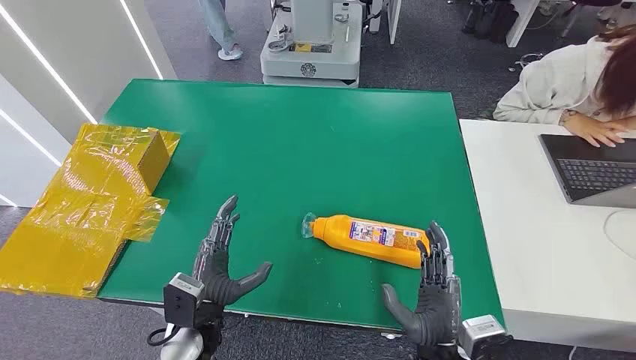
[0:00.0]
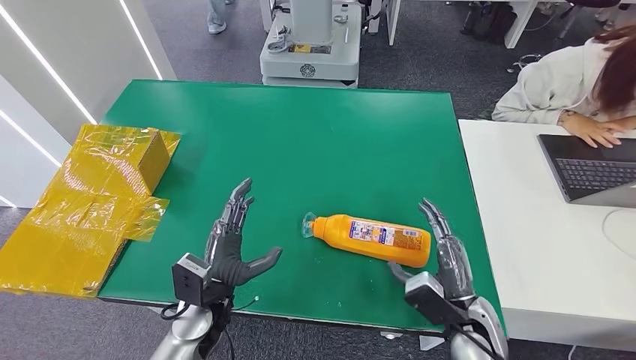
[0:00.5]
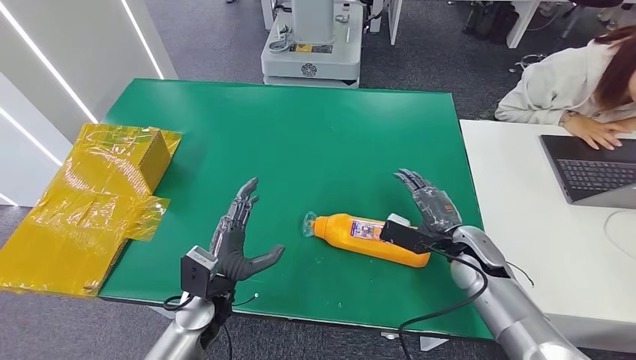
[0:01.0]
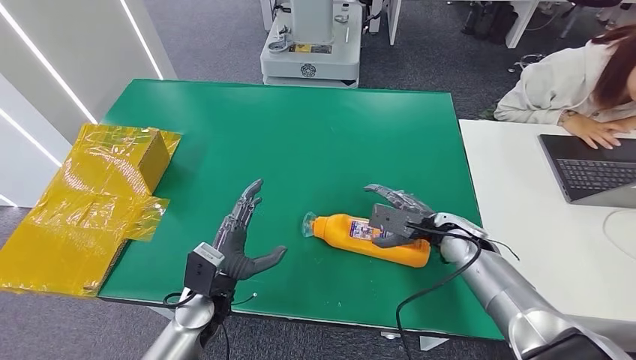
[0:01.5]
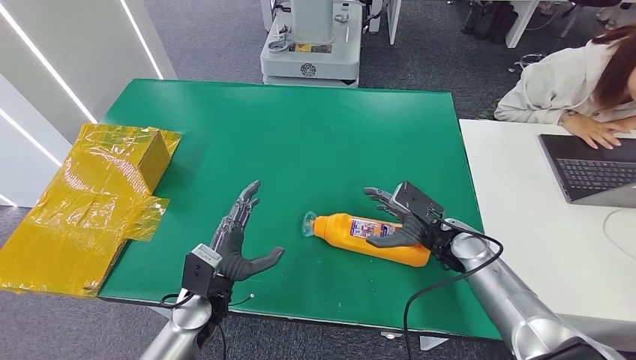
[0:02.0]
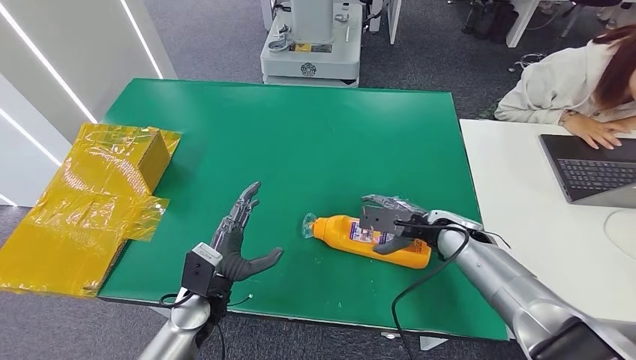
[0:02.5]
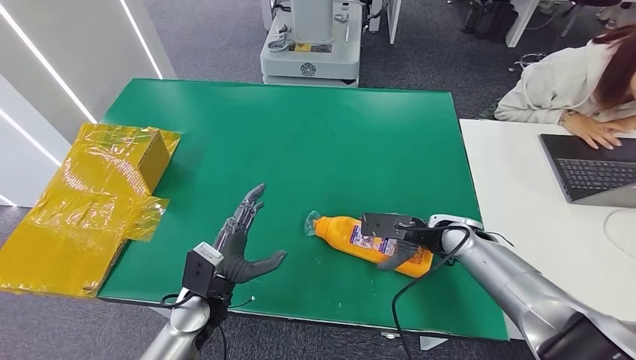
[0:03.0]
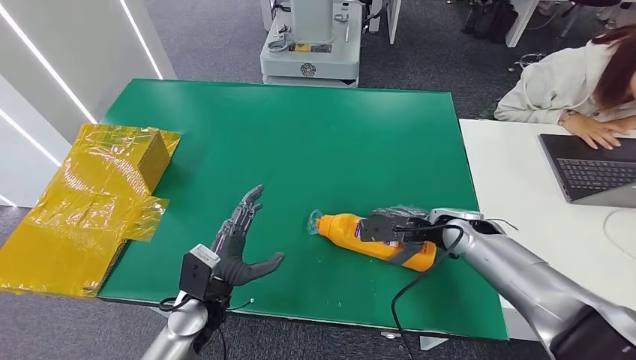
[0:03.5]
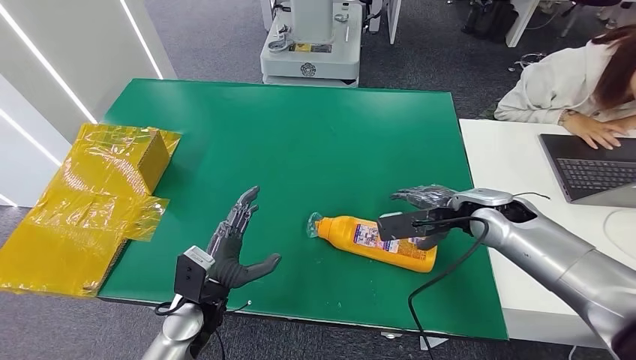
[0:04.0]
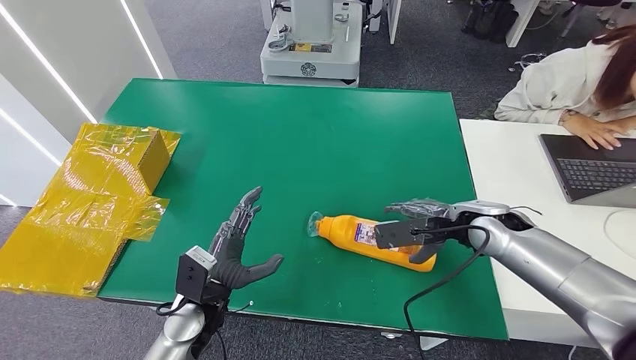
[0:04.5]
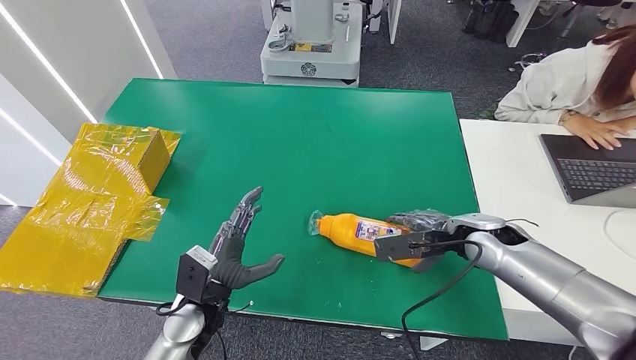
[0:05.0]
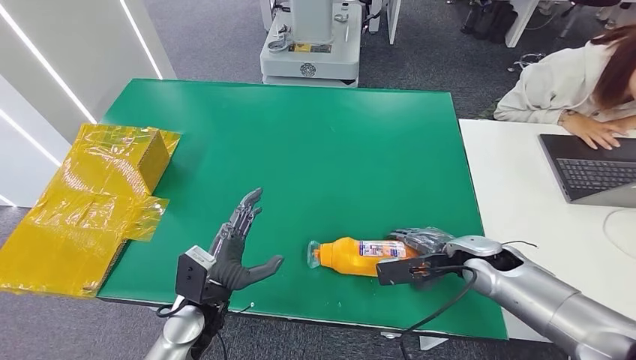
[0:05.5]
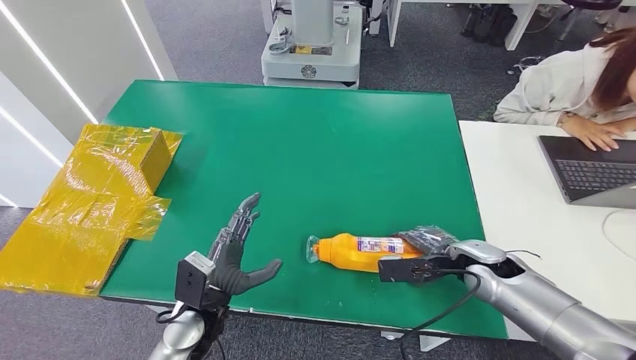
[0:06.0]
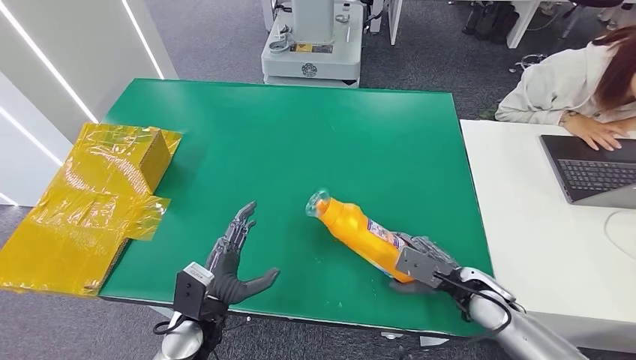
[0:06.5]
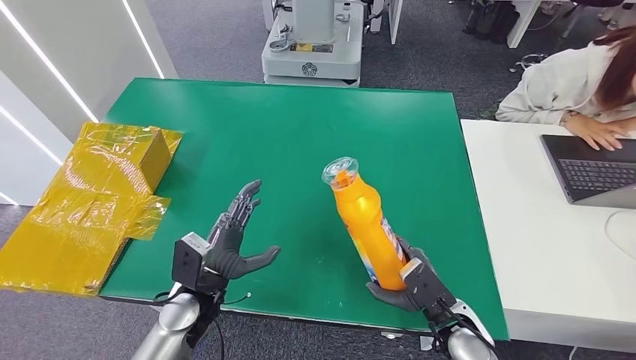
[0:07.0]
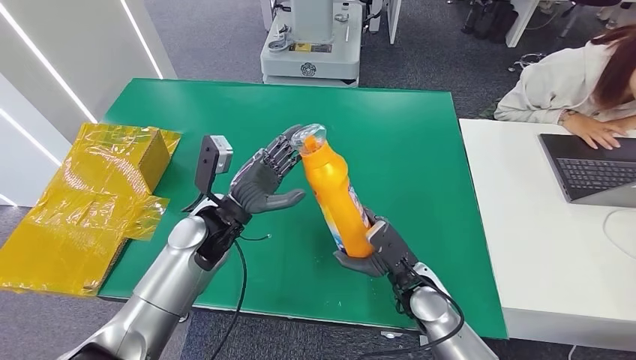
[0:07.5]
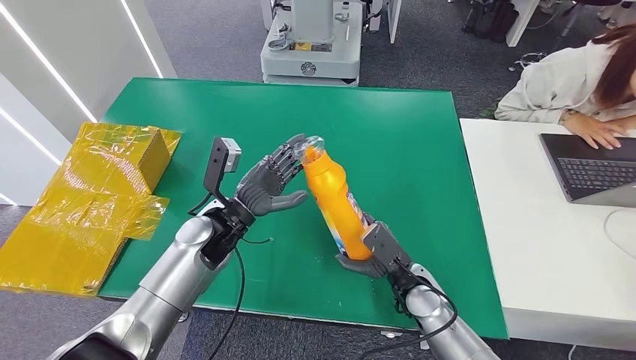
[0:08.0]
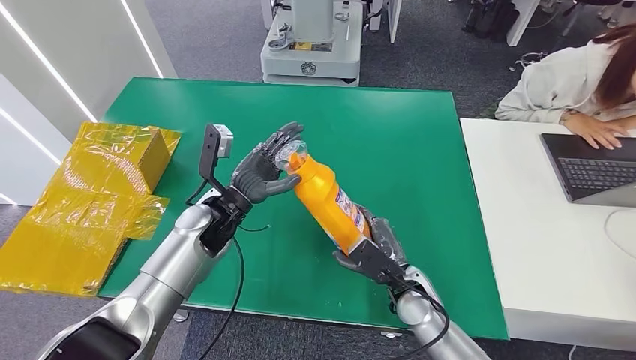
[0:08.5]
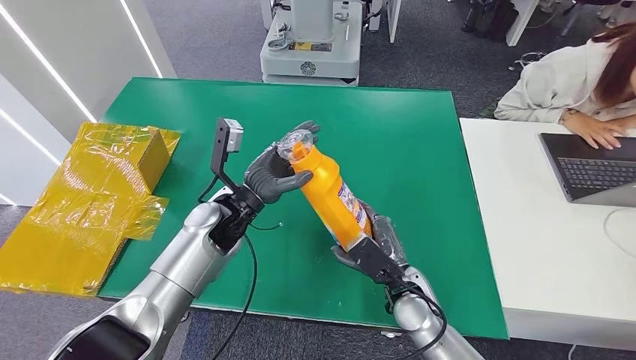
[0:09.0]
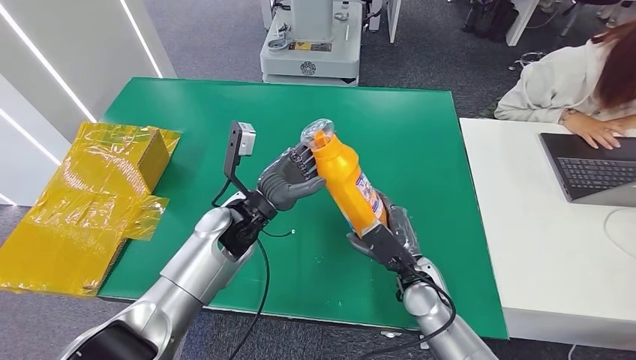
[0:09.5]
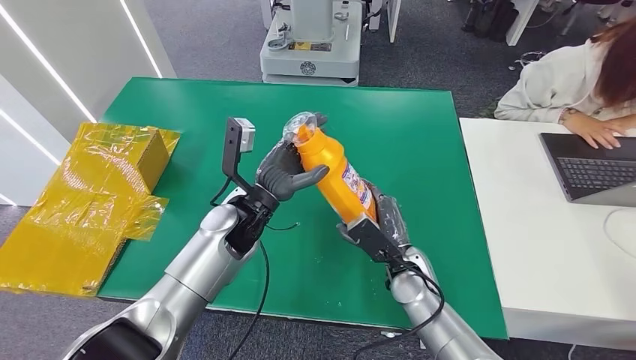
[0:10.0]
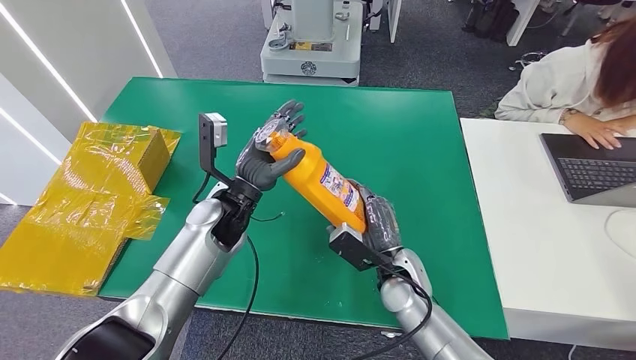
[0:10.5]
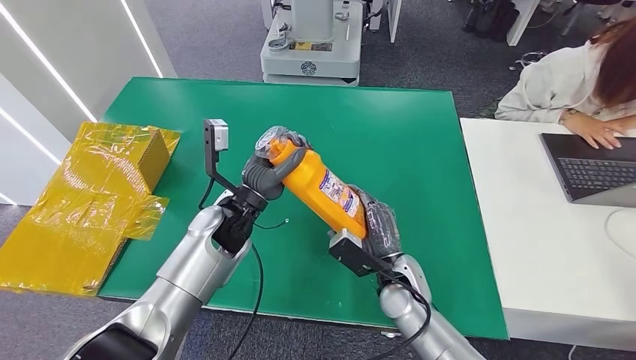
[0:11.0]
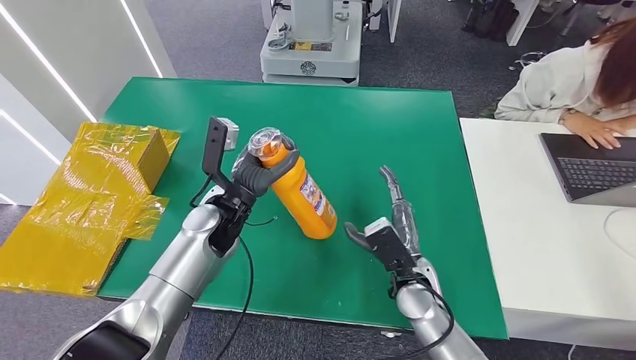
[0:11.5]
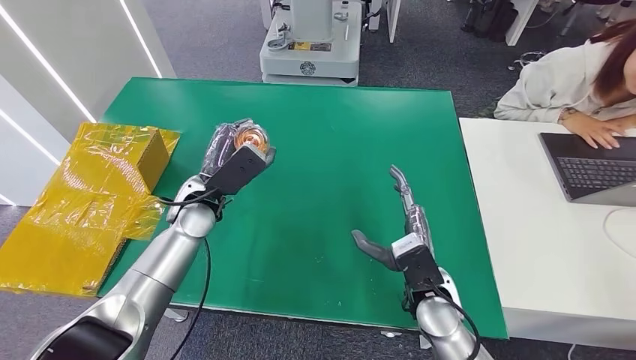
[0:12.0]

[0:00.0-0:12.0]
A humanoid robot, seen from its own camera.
Step, 0:00.0 to 0:07.0: Pick up the bottle from the table.
0:02.0 to 0:04.0: The right hand heads upward, covering about 10 cm.
0:08.0 to 0:10.0: The left hand shifts by about 5 cm.
0:10.0 to 0:12.0: The left hand goes roughly 10 cm to the left, while the right hand moves about 5 cm.

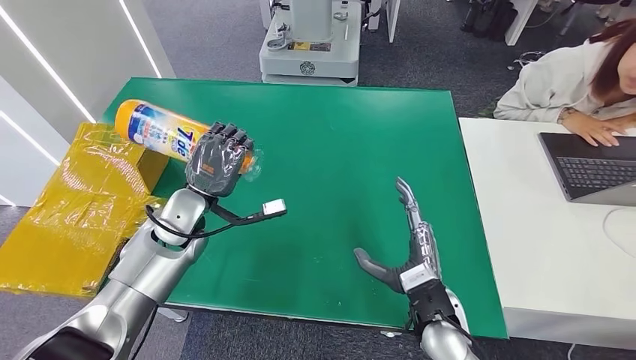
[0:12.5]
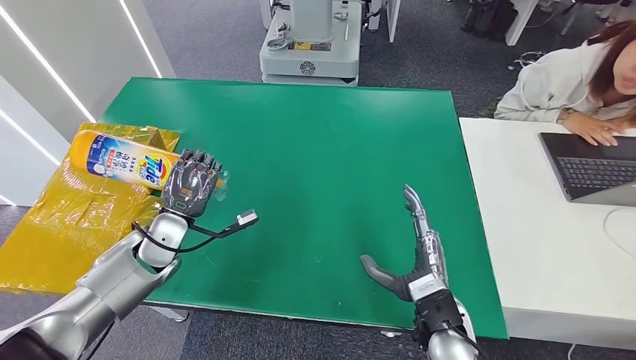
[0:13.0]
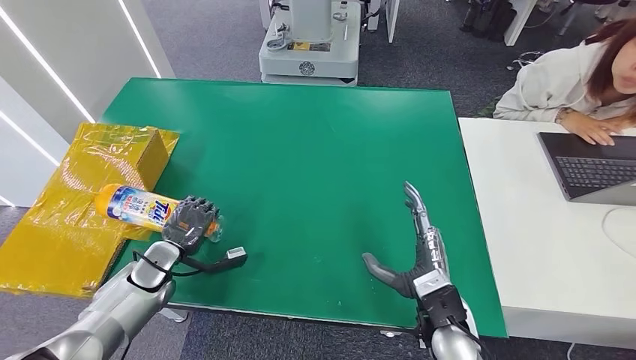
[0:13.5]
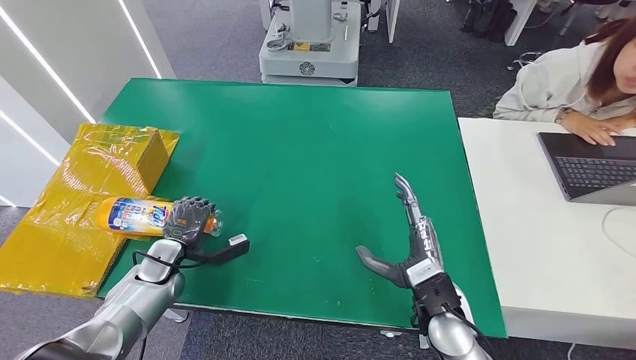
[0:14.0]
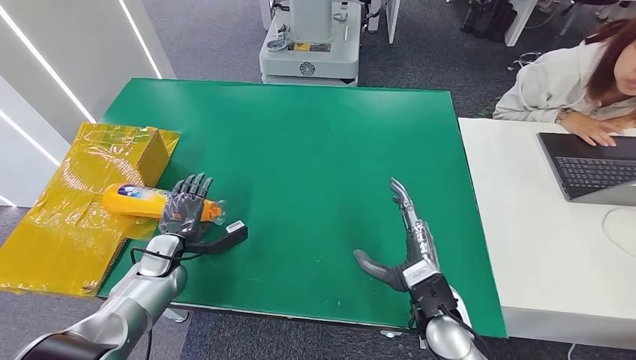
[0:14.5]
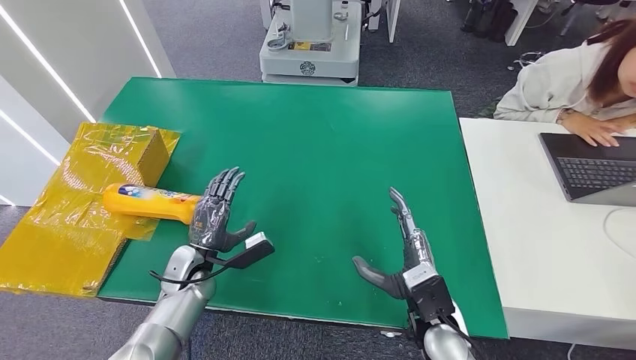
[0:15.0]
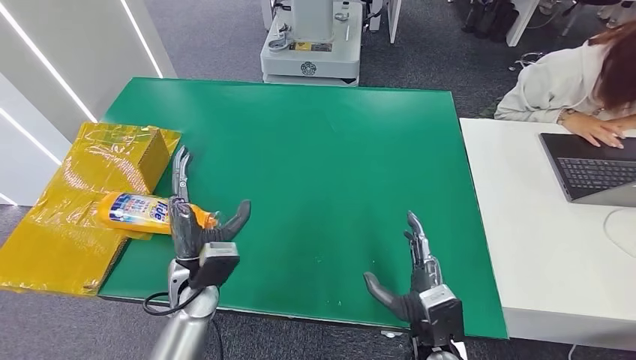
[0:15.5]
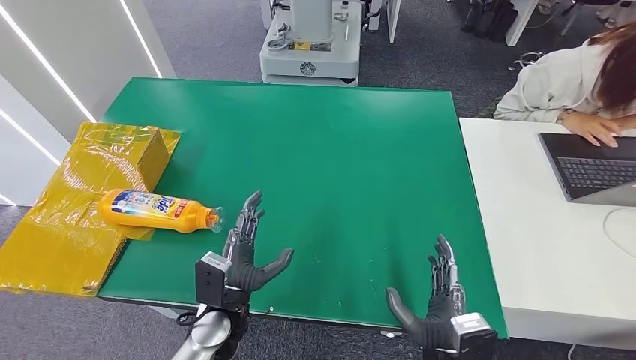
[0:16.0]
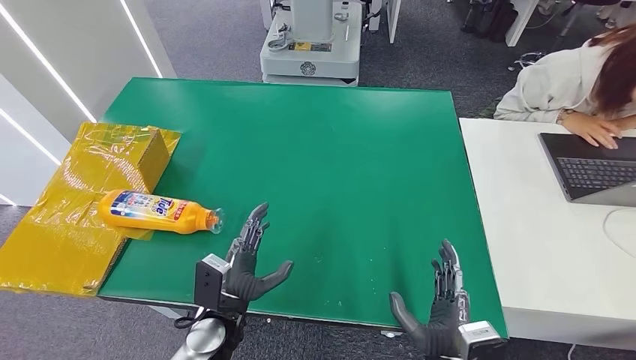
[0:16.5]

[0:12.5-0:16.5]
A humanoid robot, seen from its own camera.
Step, 0:12.5 to 0:16.5: Turn the bottle to the front side.
0:12.5 to 0:14.5: The left hand goes some 15 cm downward and to the left.
0:14.5 to 0:16.5: The left hand goes approximately 20 cm to the right and backward; the right hand moves backward, approximately 10 cm.
